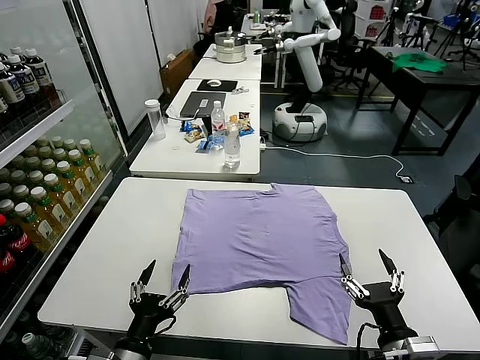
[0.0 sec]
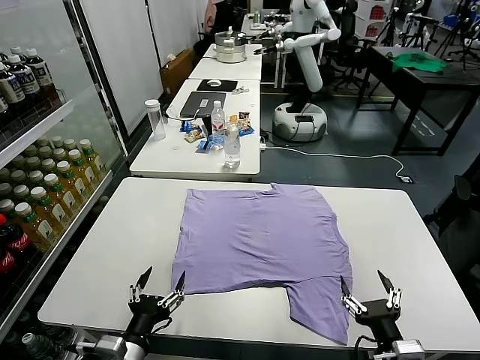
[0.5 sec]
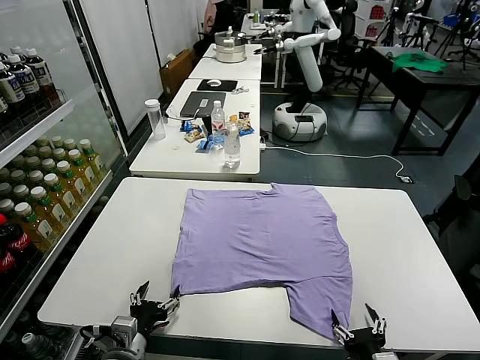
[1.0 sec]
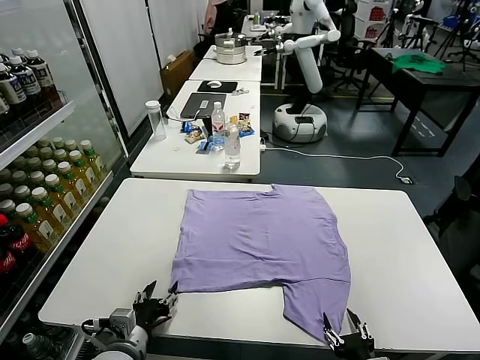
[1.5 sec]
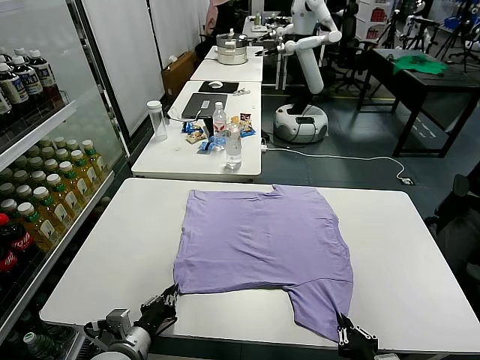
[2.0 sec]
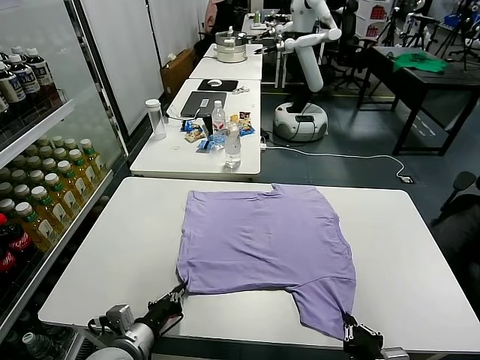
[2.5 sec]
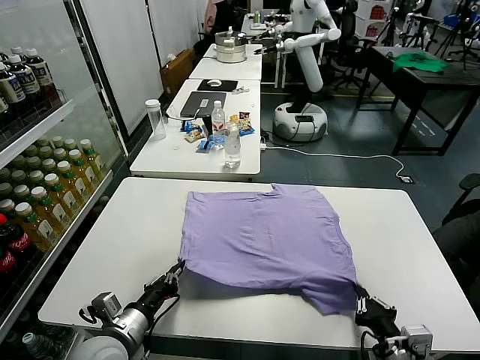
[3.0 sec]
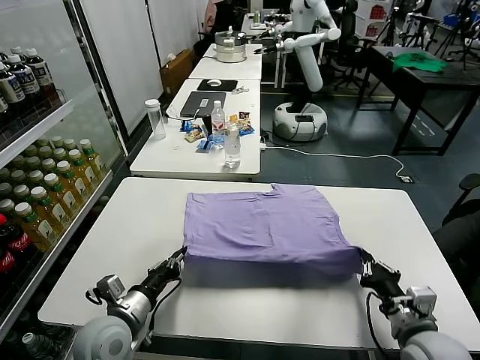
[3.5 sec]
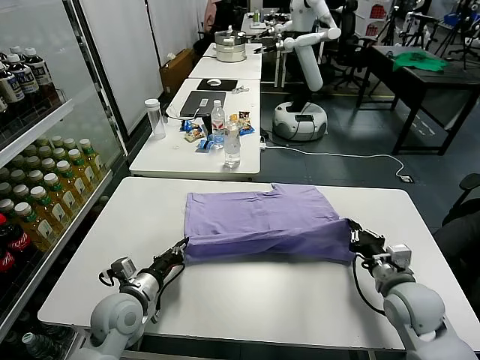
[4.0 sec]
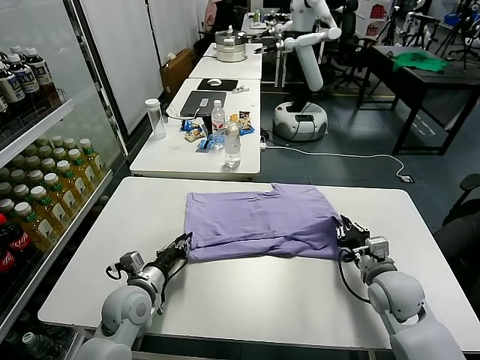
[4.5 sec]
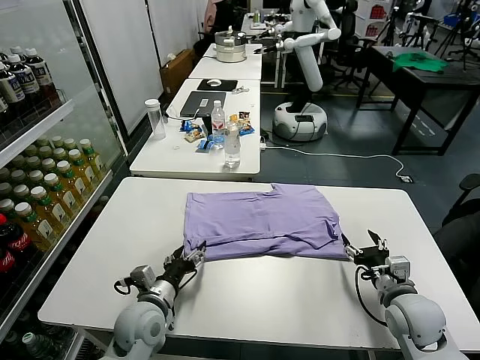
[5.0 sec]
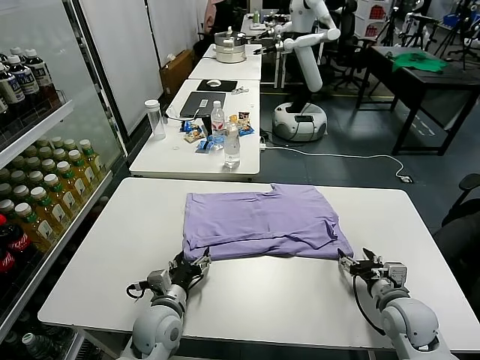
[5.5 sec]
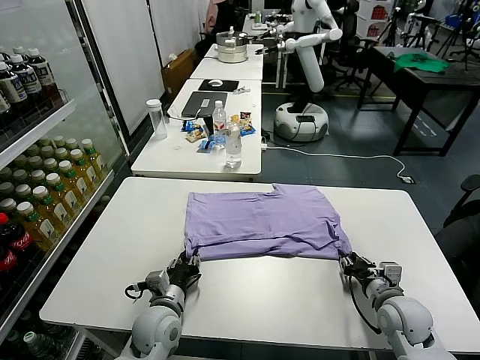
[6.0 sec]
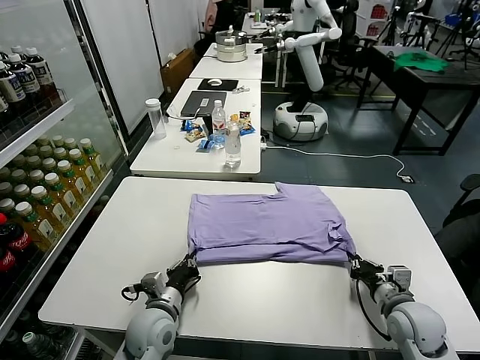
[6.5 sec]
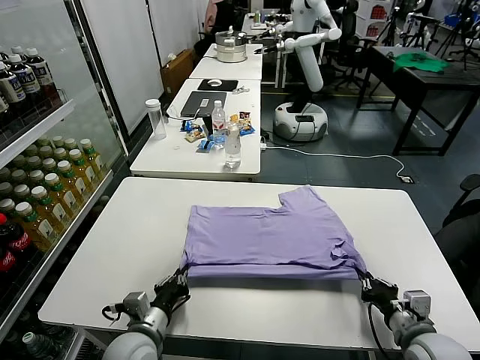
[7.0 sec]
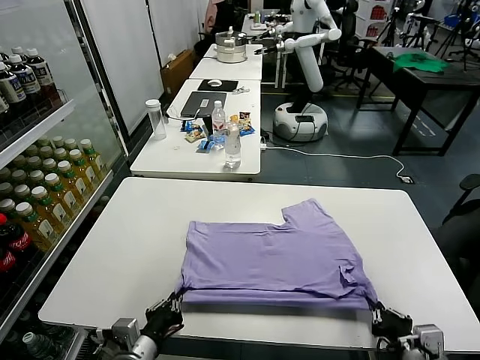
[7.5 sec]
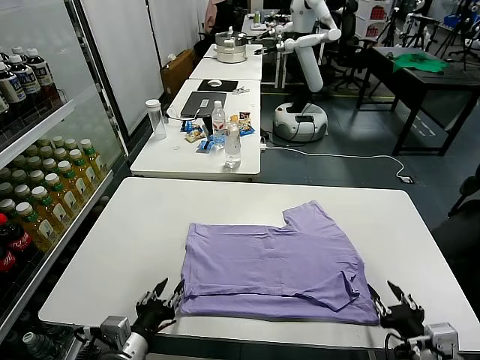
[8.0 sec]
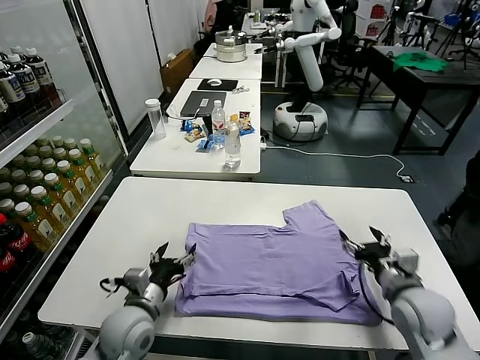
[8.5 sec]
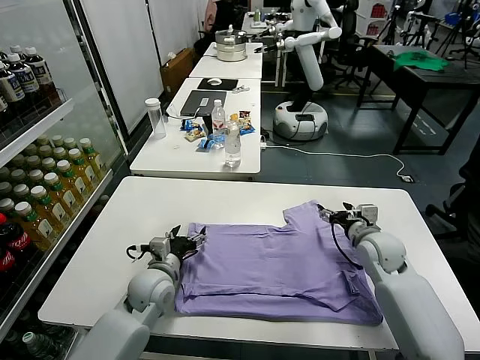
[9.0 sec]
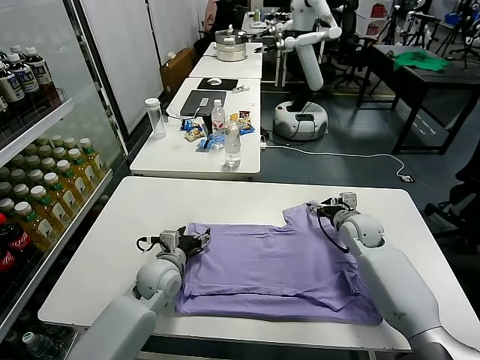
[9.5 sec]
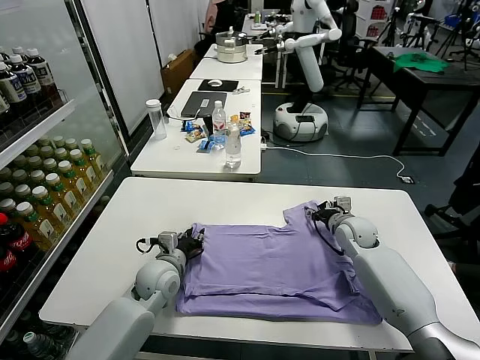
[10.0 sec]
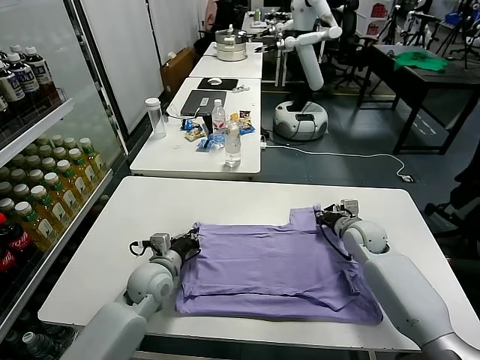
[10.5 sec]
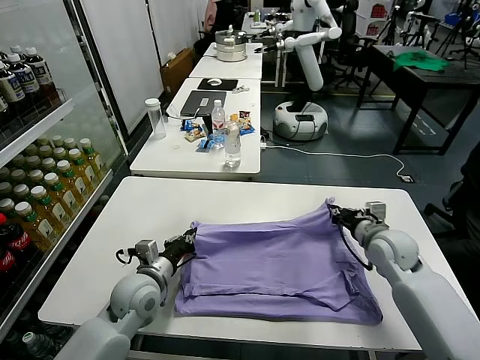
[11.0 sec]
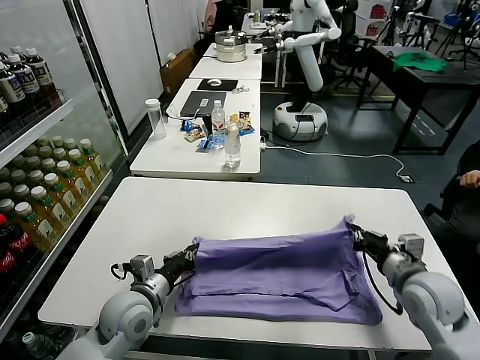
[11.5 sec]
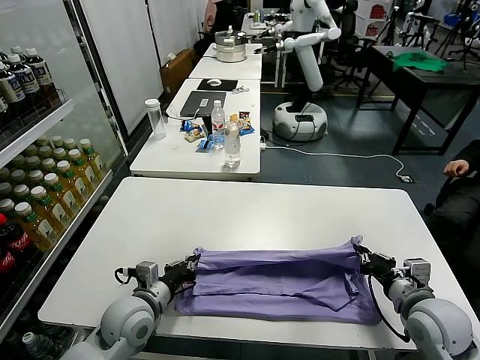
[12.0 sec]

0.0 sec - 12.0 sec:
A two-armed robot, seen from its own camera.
Task of the whole recording: fold and organize the clothes.
Step, 0.0 sec - 2.0 sec: use both grippers simultaneously to clamp the lower edge of the clothing fabric.
Step, 2.5 sec - 4.5 sec: use both grippers to drag the lower edge of the fabric forward and fold it over the upper edge.
Step, 5.0 sec - 8.0 sec: Drag the clothes downward with both gripper.
Step, 8.5 sec - 10.0 sec: use both grippers simultaneously to clamp the upper edge of the clothing fabric.
2.0 sec - 4.0 sec: The left gripper goes approximately 10 cm forward. Meanwhile the right gripper travels forward by some 20 cm.
4.0 sec - 6.0 sec: The left gripper shifts approximately 5 cm to the right, and opens, then closes once more. Meanwhile the right gripper heads downward, covering some 5 cm, and opens and closes again.
6.0 sec - 8.0 sec: The two grippers go about 15 cm backward and upward. The right gripper opens up.
8.0 sec - 10.0 sec: The left gripper travels forward by some 20 cm, and opens, then closes once more; the right gripper is displaced forward by some 35 cm.
10.0 sec - 12.0 sec: The right gripper is displaced backward by about 25 cm. Meanwhile the left gripper shifts roughly 10 cm backward.

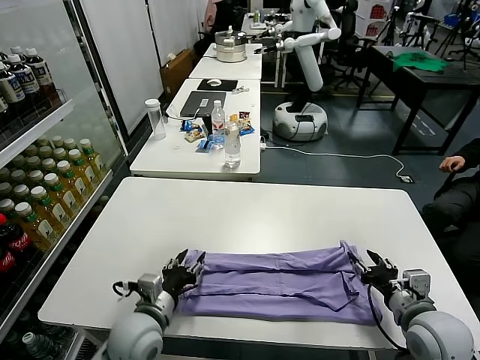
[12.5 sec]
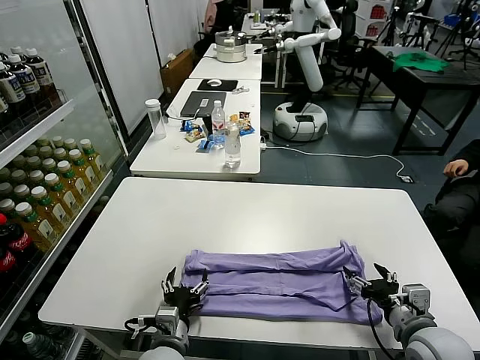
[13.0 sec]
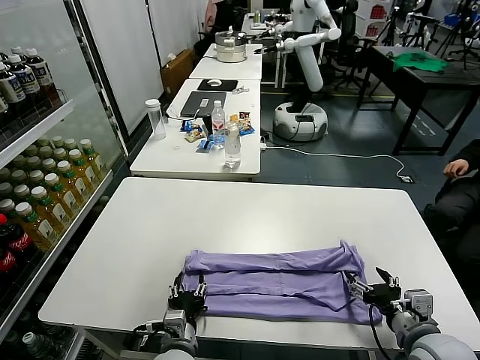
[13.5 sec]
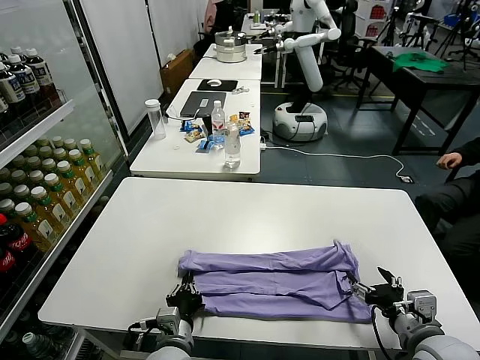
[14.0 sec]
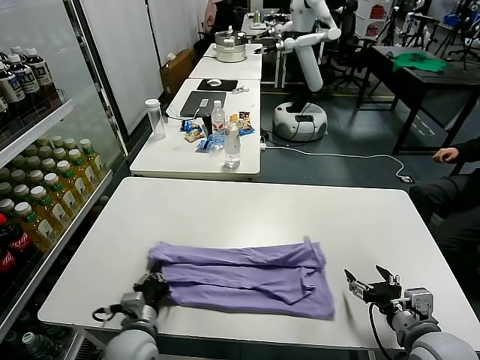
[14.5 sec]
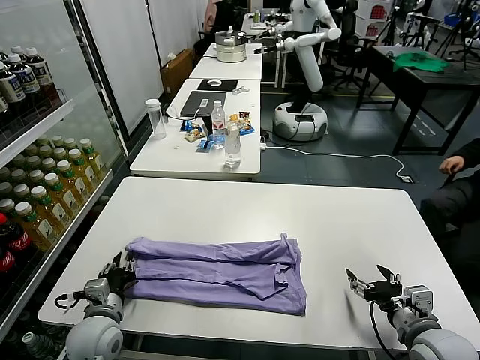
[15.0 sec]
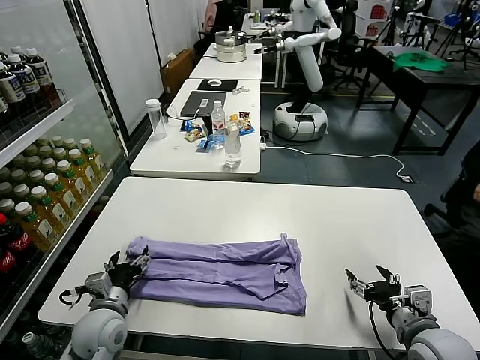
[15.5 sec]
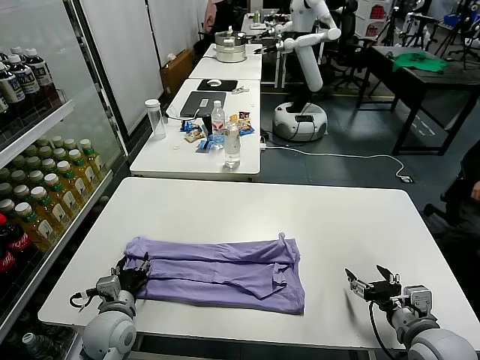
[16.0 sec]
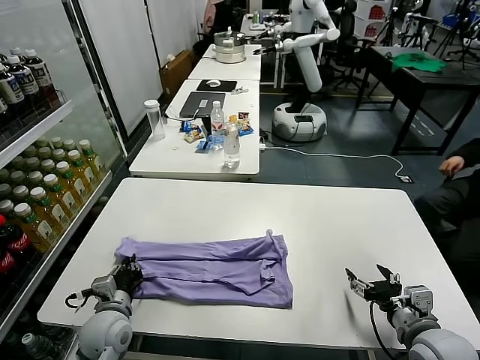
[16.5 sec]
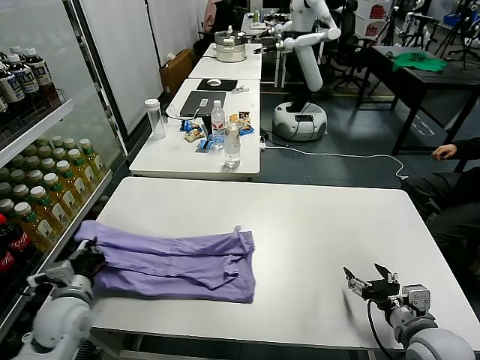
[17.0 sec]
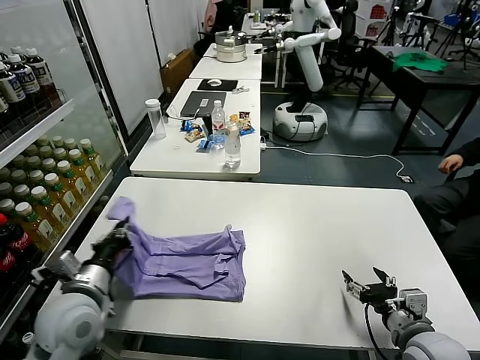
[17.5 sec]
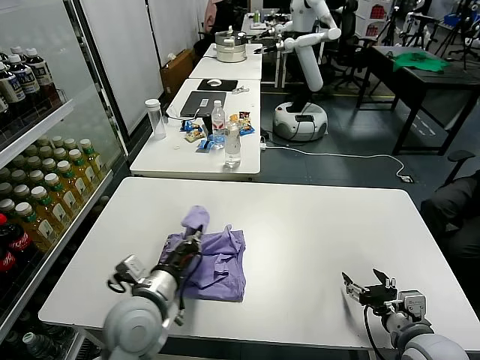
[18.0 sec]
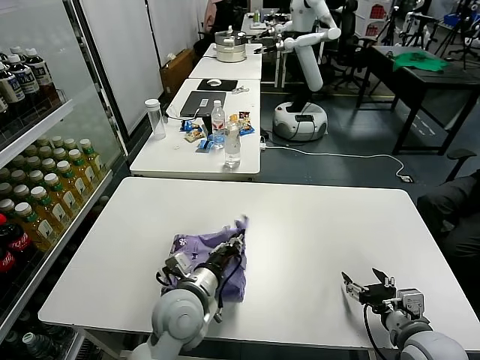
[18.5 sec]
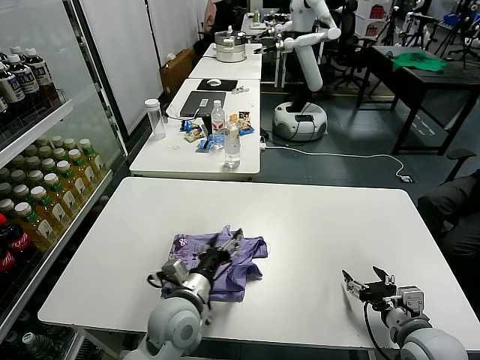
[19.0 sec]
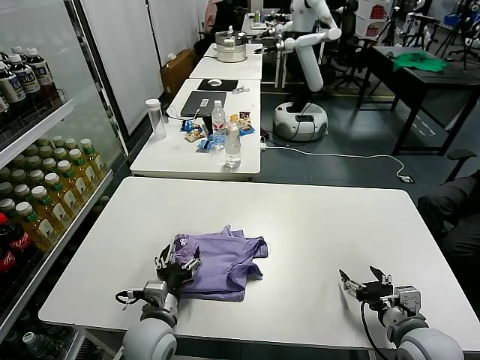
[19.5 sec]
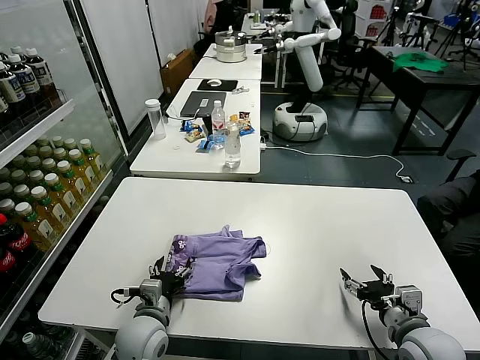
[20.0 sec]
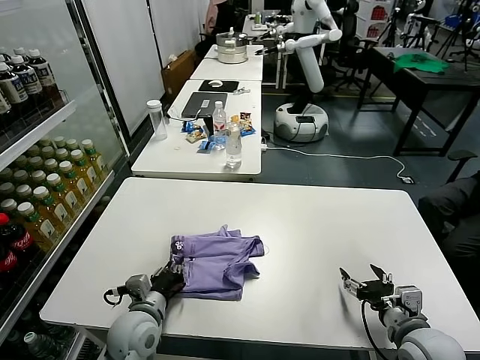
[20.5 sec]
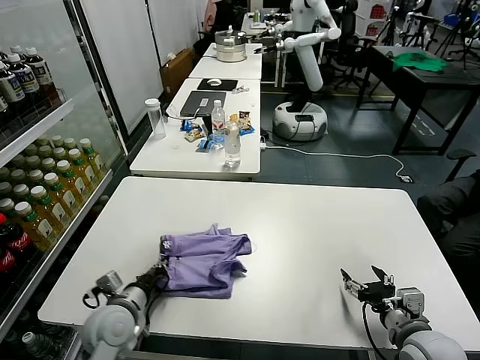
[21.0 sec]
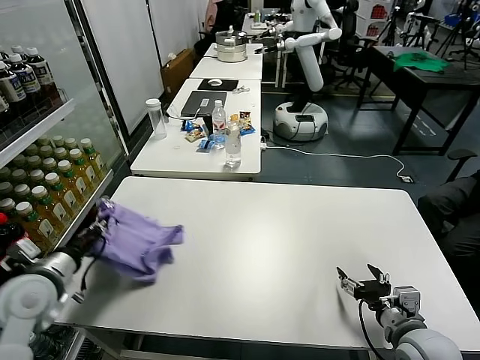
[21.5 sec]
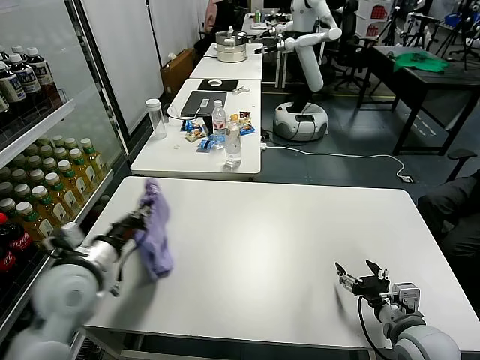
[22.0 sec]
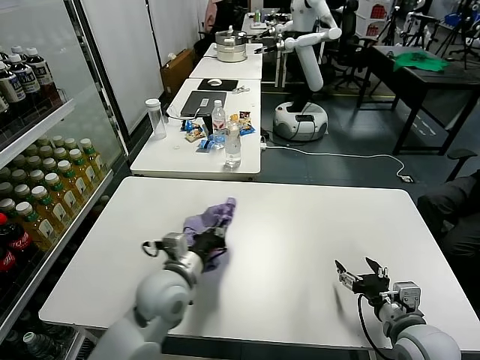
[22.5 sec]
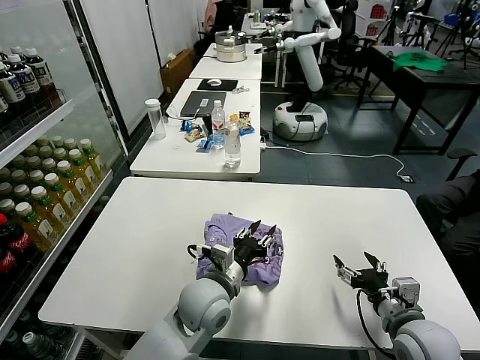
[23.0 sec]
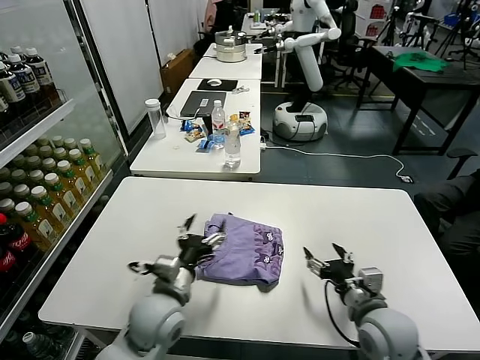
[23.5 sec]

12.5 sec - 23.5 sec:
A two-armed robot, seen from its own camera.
Task of the whole recording: fold and organize the clothes.
Step, 13.0 sec - 14.5 sec: use the left gripper to clamp the left edge of the fabric.
Step, 15.0 sec - 18.5 sec: use the left gripper to drag the left edge of the fabric to the left and folds it over the right edge.
Step, 19.0 sec - 23.0 sec: Flip the folded clothes over with left gripper.
12.5 sec - 14.5 sec: The left gripper goes to the right and returns, roughly 5 cm each way, and closes its fingers.
14.5 sec - 16.0 sec: The left gripper heads to the left, covering approximately 5 cm, and opens its fingers.
16.0 sec - 18.0 sec: The left gripper goes some 15 cm upward and to the right, and closes its fingers.
18.0 sec - 20.0 sec: The left gripper is displaced downward by approximately 10 cm, and opens up.
20.0 sec - 21.5 sec: The left gripper travels to the left and upward by roughly 20 cm, and closes its fingers.
21.5 sec - 23.5 sec: The right gripper heads to the left, covering some 5 cm. Meanwhile the left gripper moves to the right, some 25 cm, and opens up.

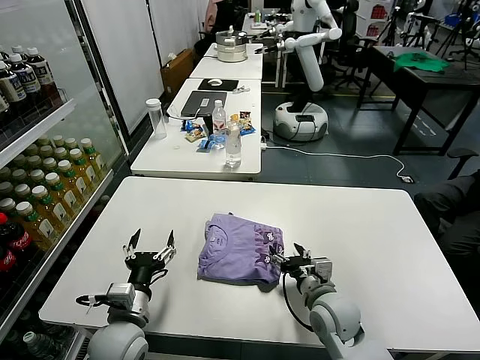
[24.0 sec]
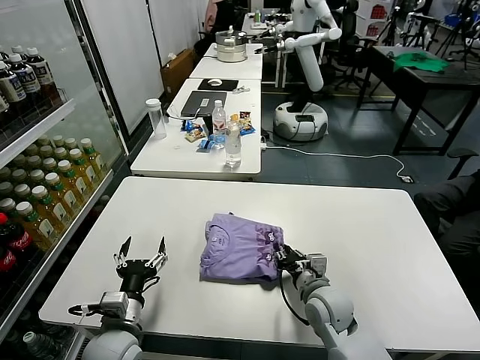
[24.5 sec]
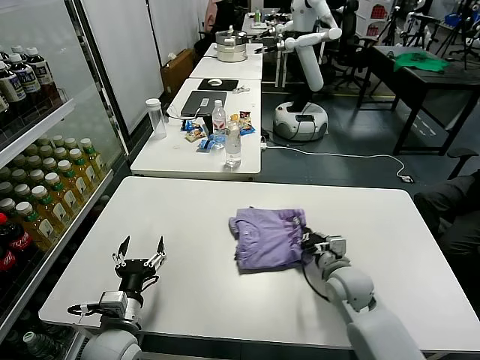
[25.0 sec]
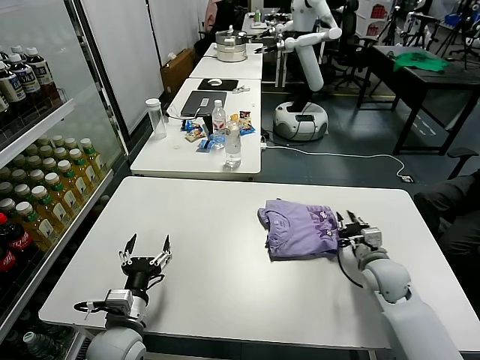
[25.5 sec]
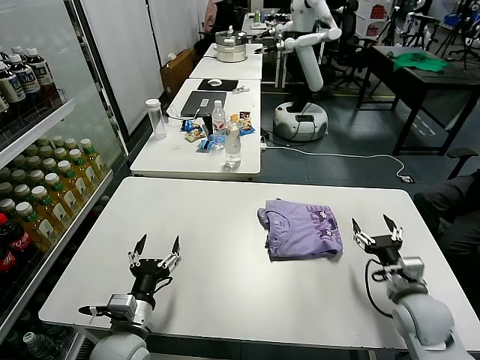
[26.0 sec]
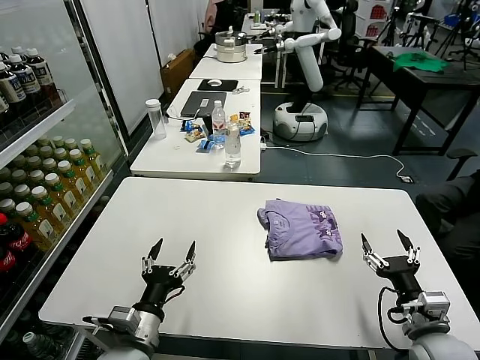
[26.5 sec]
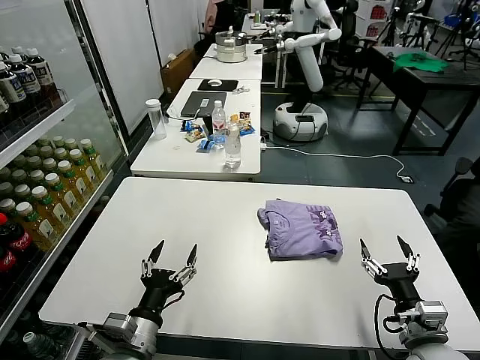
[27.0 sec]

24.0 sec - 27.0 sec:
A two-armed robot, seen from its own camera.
Task of the whole recording: fold and organize the clothes.
Step, 24.0 sec - 25.5 sec: Drag the clothes to the center of the table.
24.0 sec - 25.5 sec: The right gripper heads to the right and forward, covering about 15 cm, and closes.
25.5 sec - 27.0 sec: The left gripper is displaced backward by some 5 cm, while the right gripper heads backward, covering some 20 cm, and opens.
